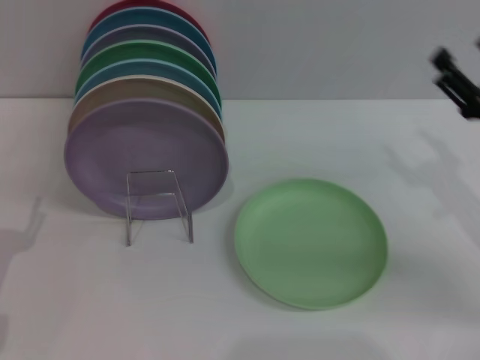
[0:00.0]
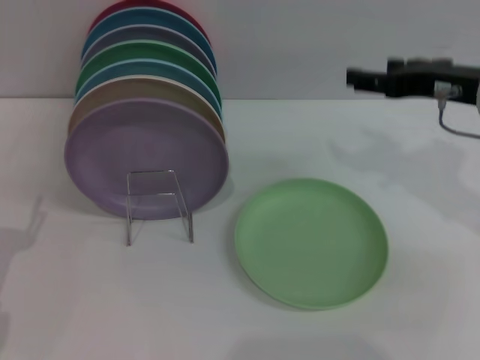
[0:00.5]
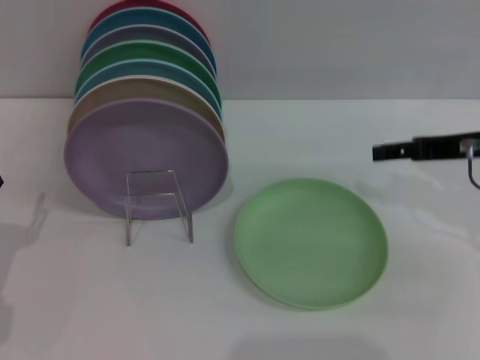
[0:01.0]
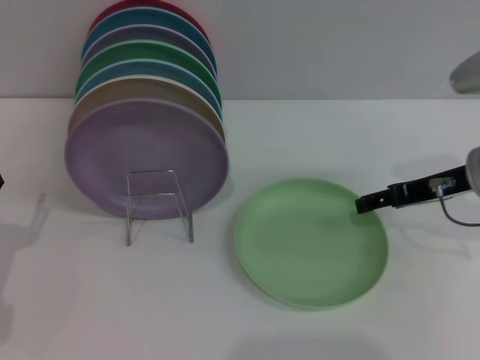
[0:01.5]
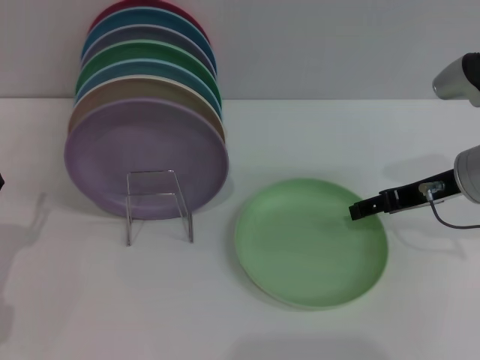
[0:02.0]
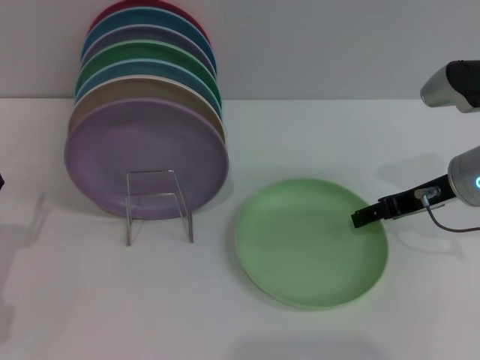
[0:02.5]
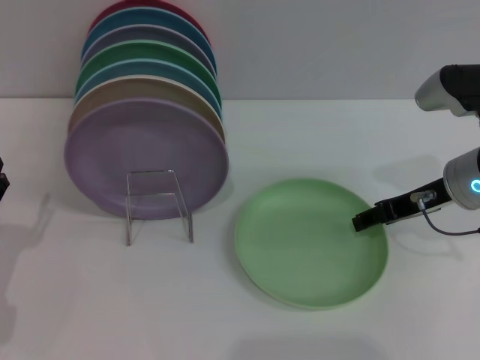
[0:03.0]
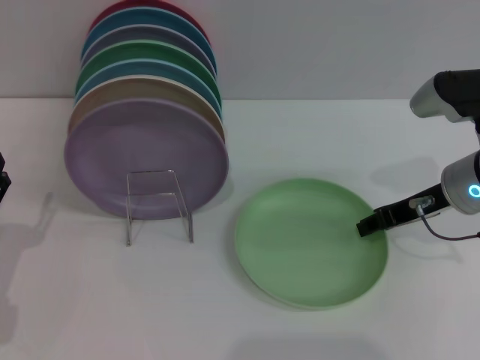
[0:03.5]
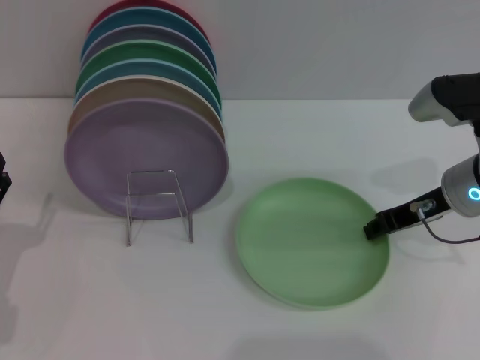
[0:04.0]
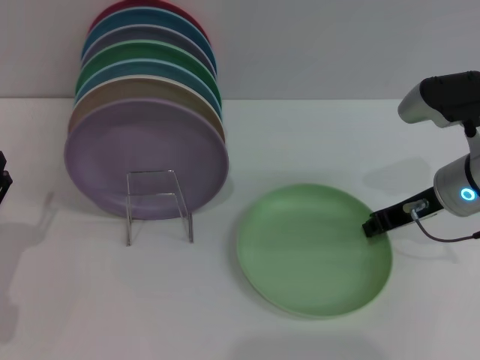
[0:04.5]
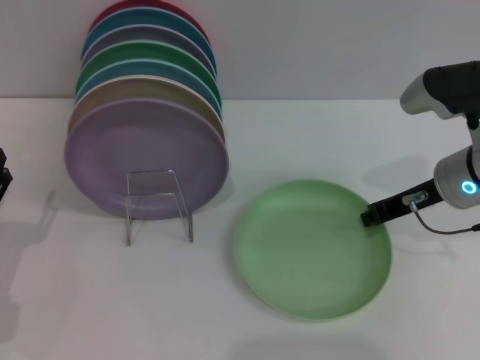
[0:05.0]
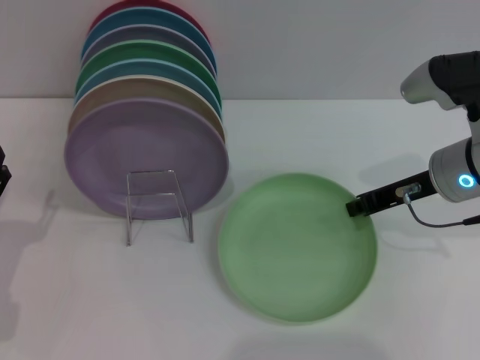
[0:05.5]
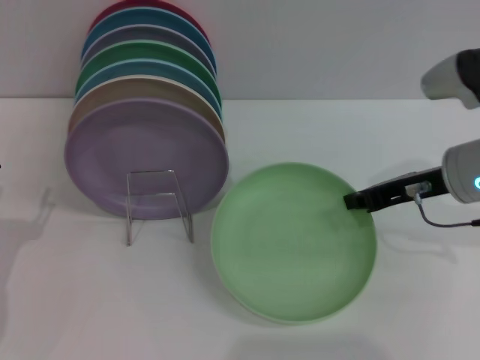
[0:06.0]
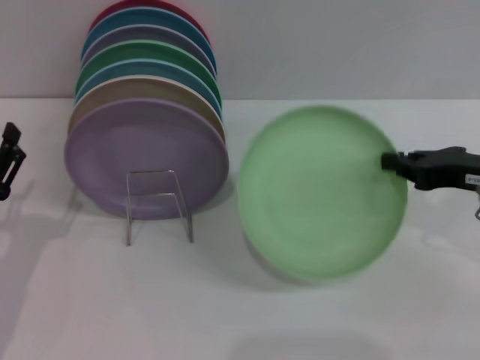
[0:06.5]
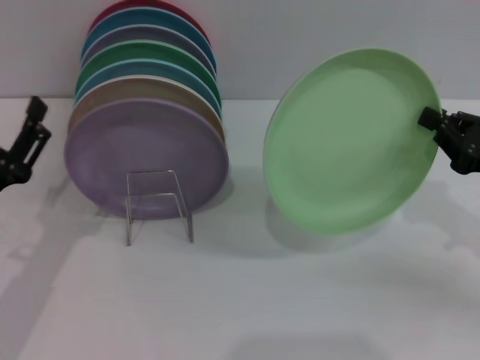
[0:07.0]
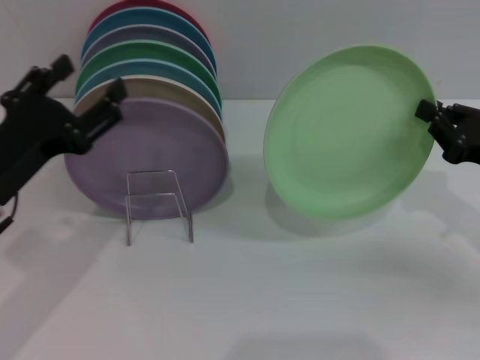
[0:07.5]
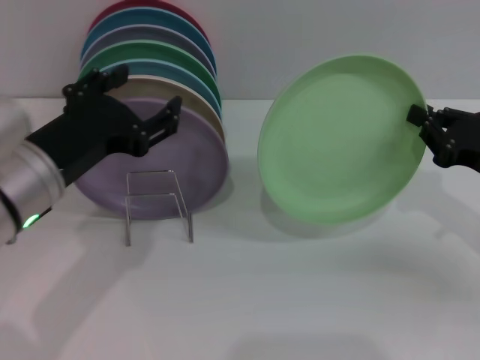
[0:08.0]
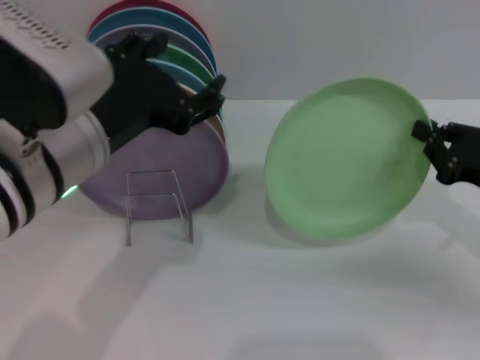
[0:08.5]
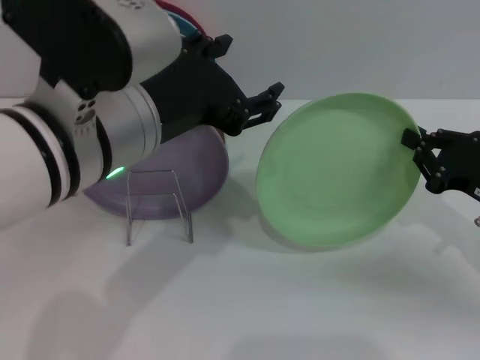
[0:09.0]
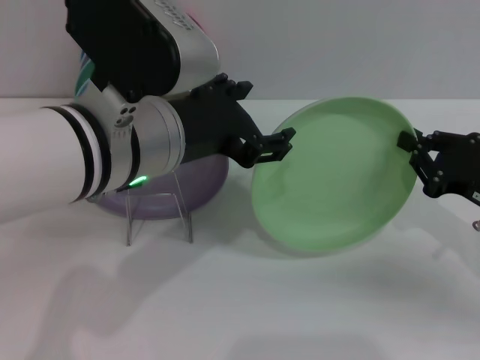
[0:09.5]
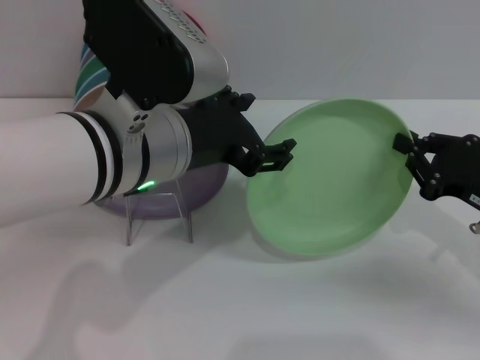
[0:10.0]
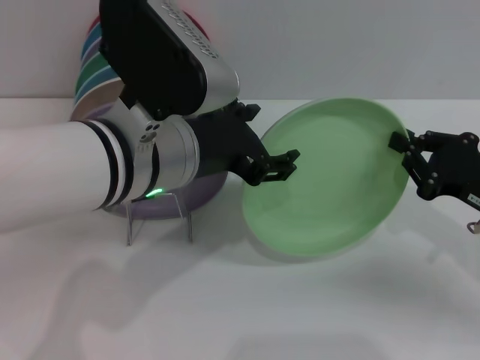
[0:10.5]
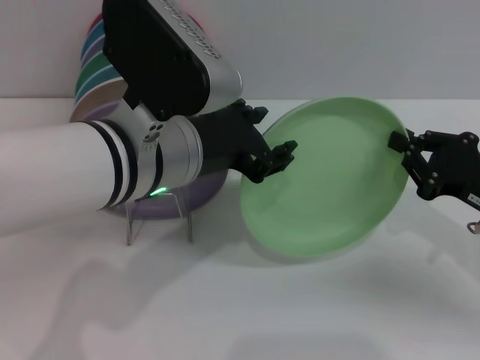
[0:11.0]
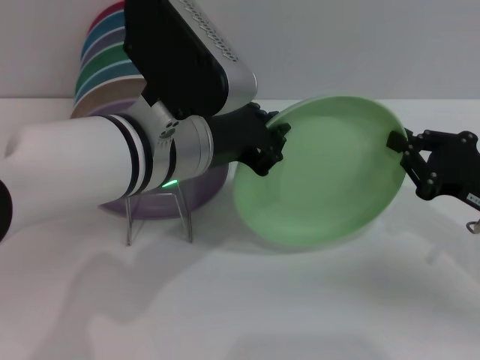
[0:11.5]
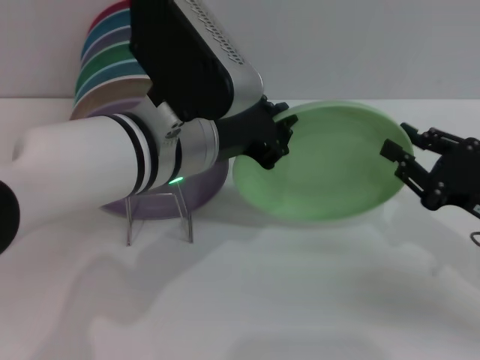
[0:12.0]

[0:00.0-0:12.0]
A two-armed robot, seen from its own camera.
Task of the whole recording: Grip the plate with one hand, pass it to the other, then set it on the shelf.
Step, 0:00.0 to 0:07.5: Pick up the plate with the right gripper.
0:00.0 to 0:02.0: The right gripper heads to the left, covering some 5 cm, and travels upward and back again, some 10 cm each way.
0:02.0 to 0:04.0: The right gripper closes its fingers.
0:04.0 to 0:06.0: The right gripper closes its fingers.
0:06.0 to 0:08.0: The left gripper goes about 20 cm upward and to the right. Meanwhile the right gripper heads to the right, covering about 10 cm.
0:08.0 to 0:10.0: The left gripper shifts approximately 10 cm to the right.
0:10.0 to 0:12.0: The left gripper closes its fingers.

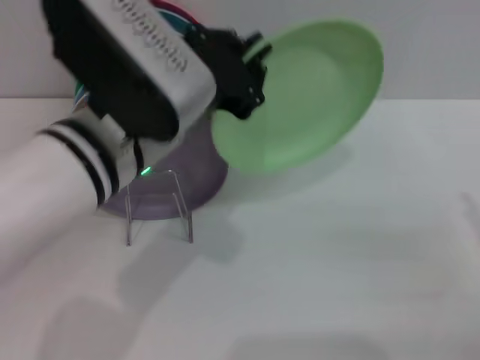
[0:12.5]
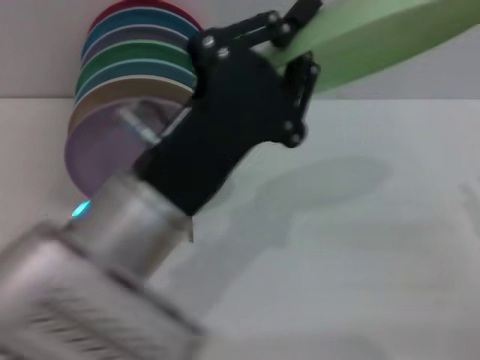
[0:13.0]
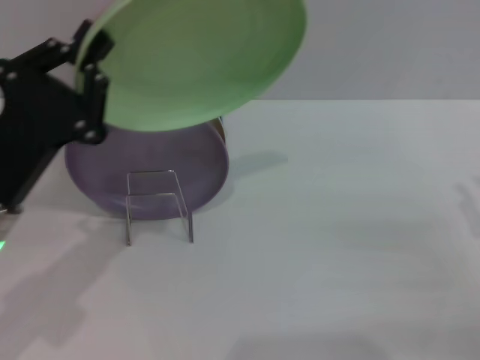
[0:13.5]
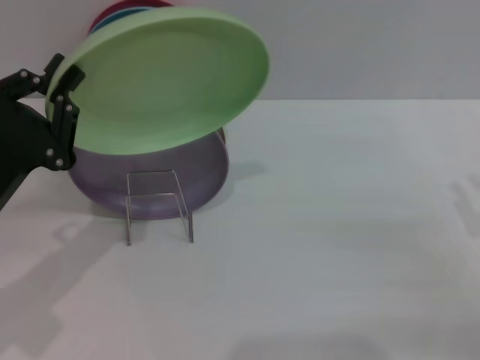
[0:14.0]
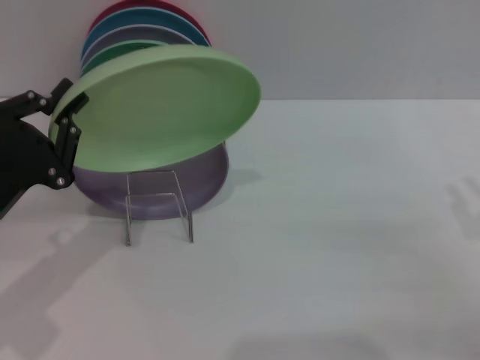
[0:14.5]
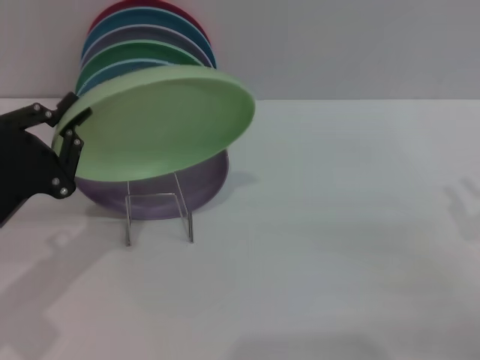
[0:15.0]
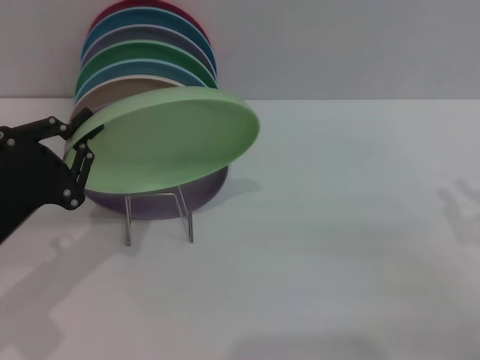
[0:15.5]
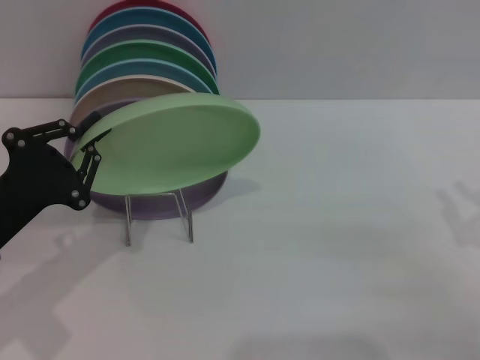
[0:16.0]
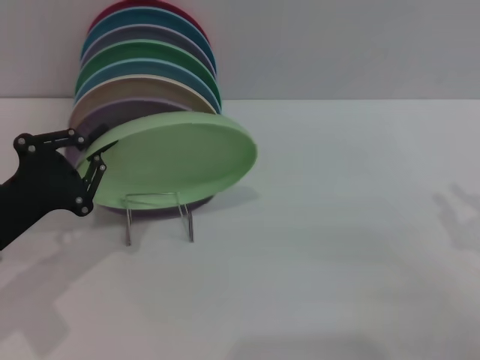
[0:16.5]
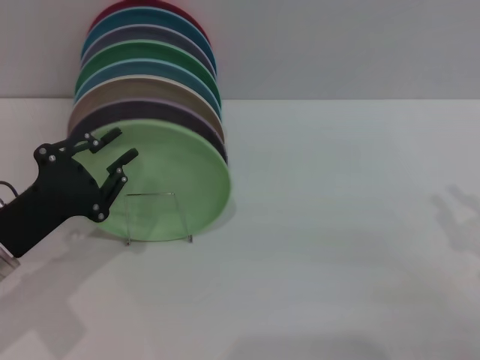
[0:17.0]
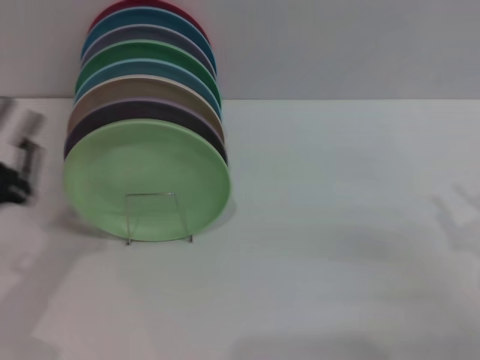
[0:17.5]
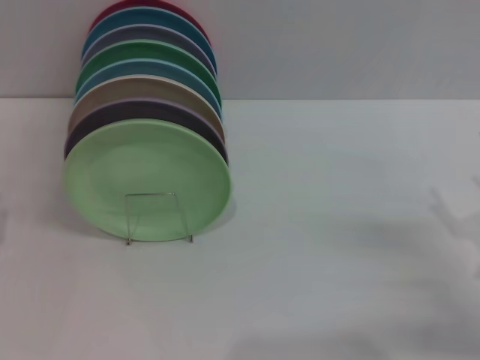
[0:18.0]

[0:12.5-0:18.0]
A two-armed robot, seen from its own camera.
Task of the whole recording: Grip the plate with one hand, pass it to the other, then set it on the shelf.
Step, 0:12.5 to 0:17.0: Place the plate on the shelf with the left gripper.
0:12.5 to 0:14.5: The left gripper is displaced to the left and downward by about 20 cm.
0:14.5 to 0:16.0: The grippers make only small movements.
0:16.0 to 0:18.0: The left gripper shifts about 5 cm to the left; the right gripper opens its fingers.
